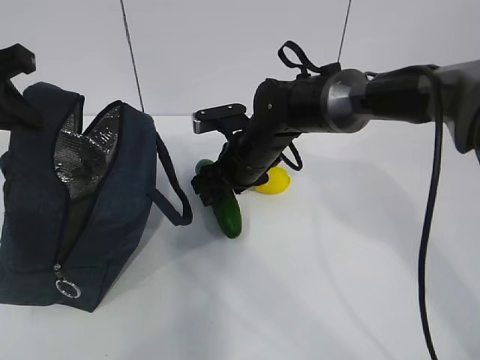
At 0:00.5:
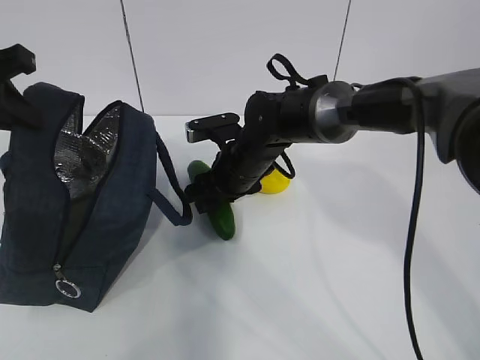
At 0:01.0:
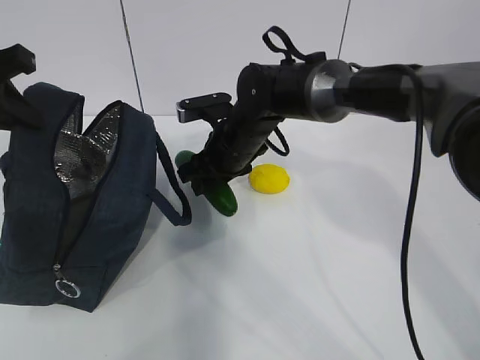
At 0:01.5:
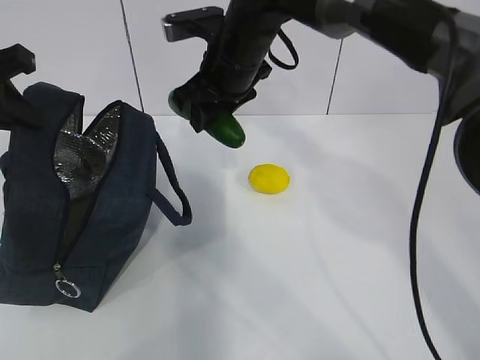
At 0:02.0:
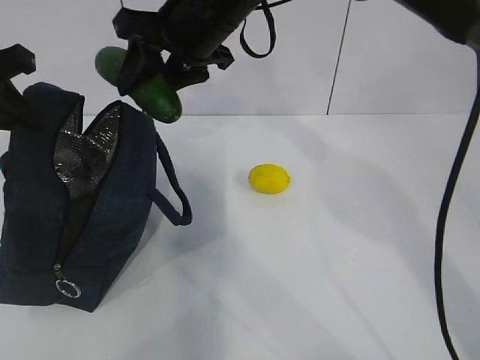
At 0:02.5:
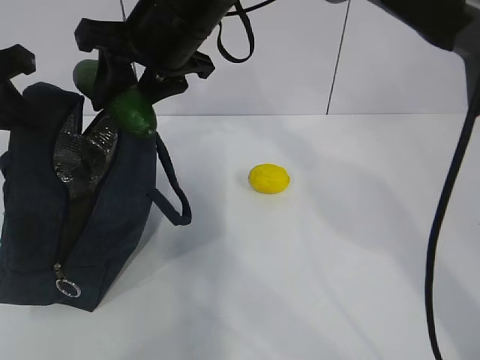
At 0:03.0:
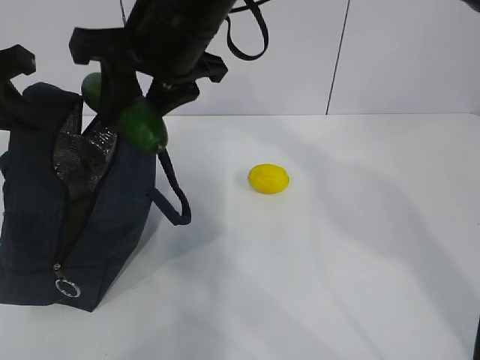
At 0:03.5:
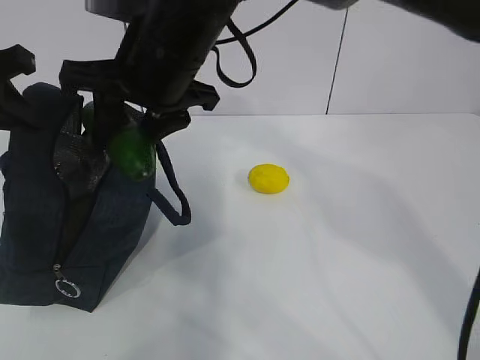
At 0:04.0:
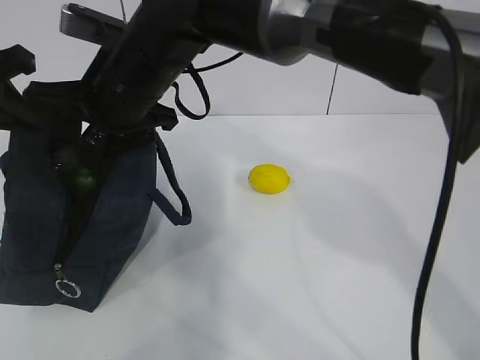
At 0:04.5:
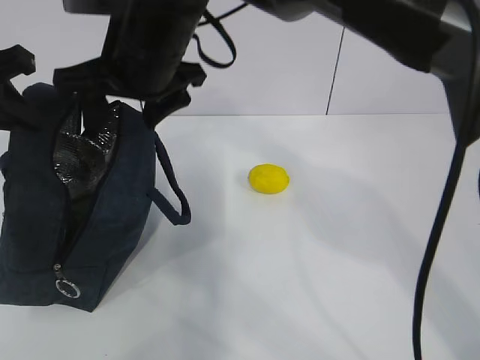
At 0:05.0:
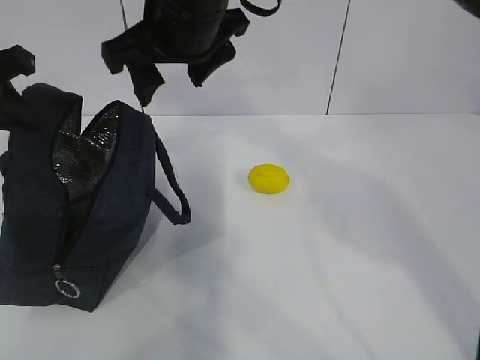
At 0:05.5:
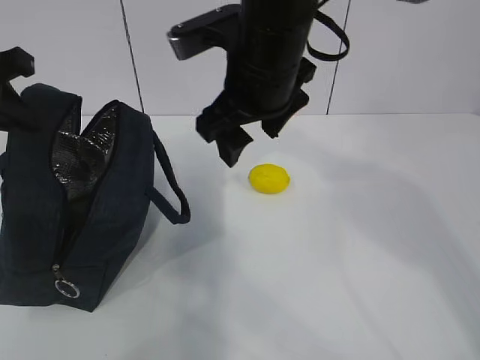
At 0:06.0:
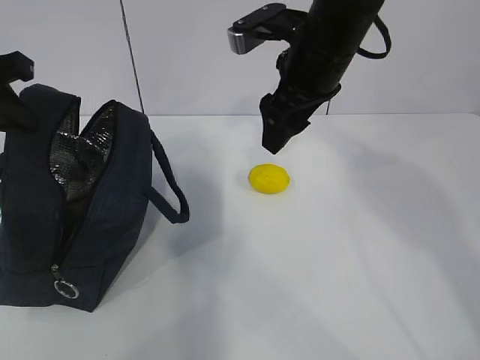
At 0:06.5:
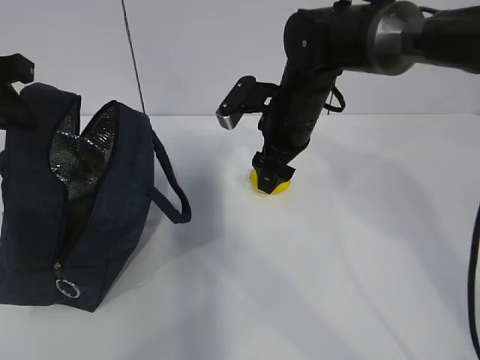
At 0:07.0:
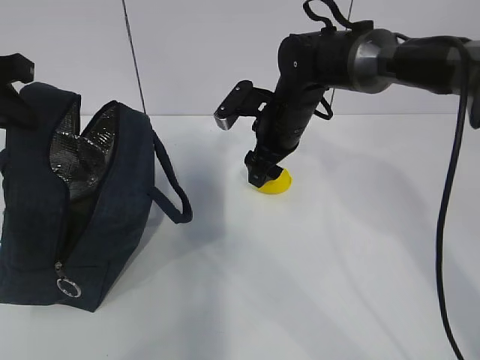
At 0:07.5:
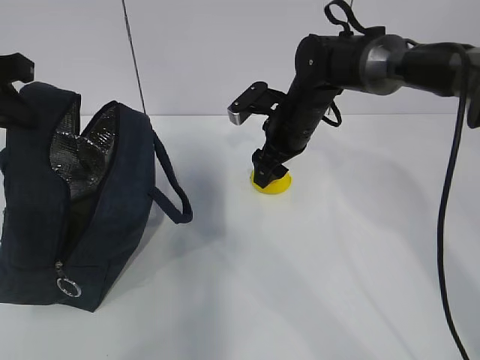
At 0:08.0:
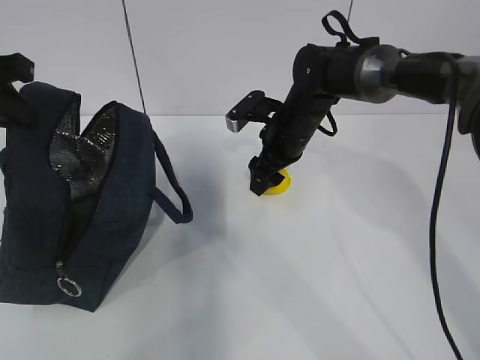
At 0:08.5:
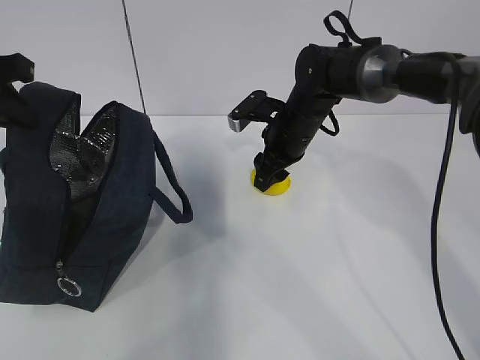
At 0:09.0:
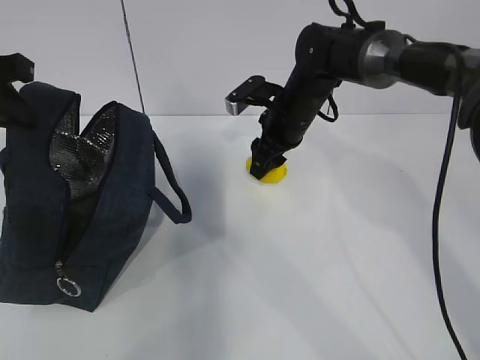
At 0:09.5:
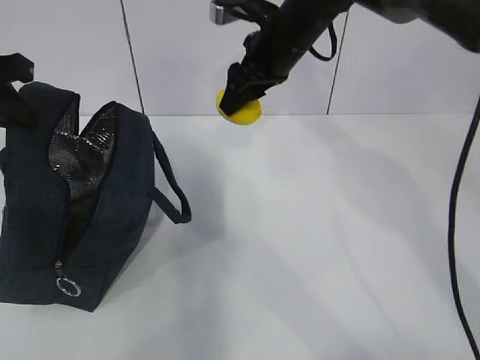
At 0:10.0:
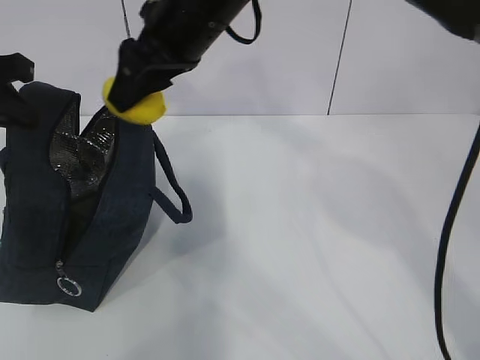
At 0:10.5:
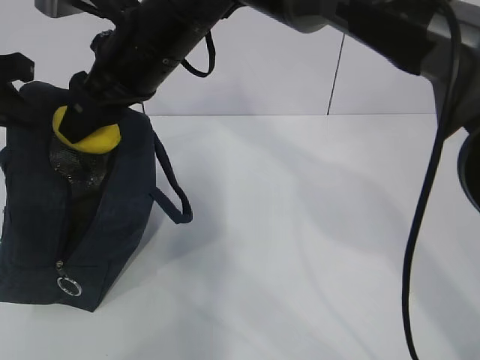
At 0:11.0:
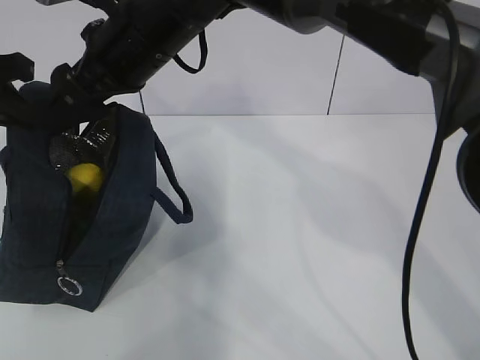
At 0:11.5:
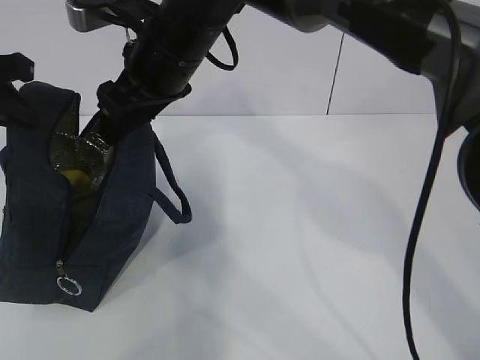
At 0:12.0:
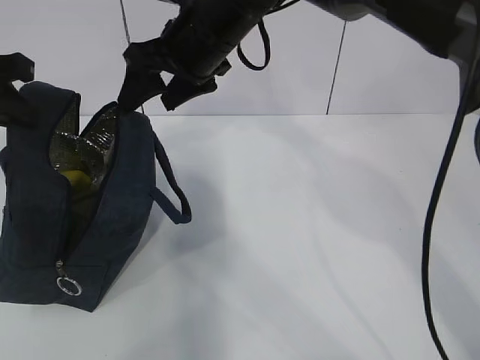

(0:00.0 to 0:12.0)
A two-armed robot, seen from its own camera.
Step, 0:00.0 - 0:02.5: Grab the lemon with your right hand.
Step, 0:05.5 - 0:06.5: Grab the lunch bag with your right hand.
Step, 0:07.0 - 0:09.0: Move the lunch bag to the right.
0:00.0 - 0:02.0: The right gripper heads upward, covering some 20 cm.
0:02.0 - 0:04.0: The right gripper travels to the left and backward by some 10 cm.
0:04.0 - 0:06.0: The right gripper travels to the right by about 20 cm.
0:06.0 - 0:08.0: The right gripper travels downward and forward by about 15 cm.
0:08.0 - 0:10.0: The right gripper is displaced upward, to the left and backward by some 25 cm.

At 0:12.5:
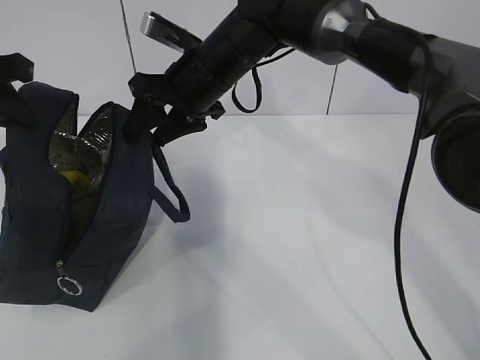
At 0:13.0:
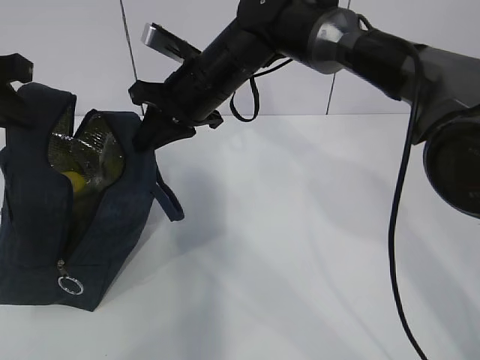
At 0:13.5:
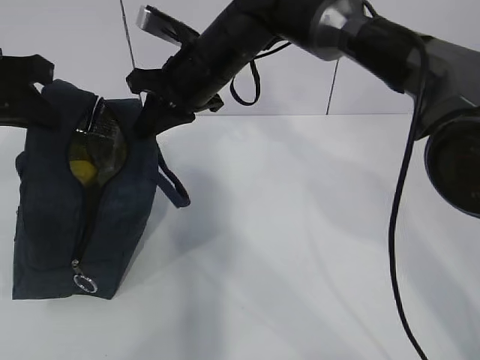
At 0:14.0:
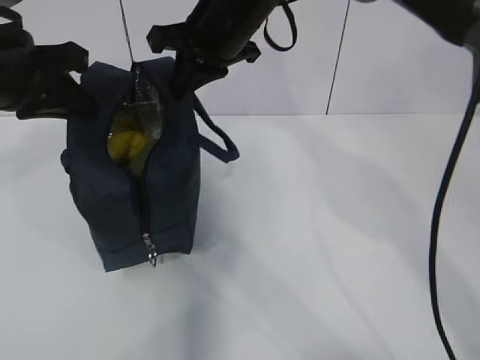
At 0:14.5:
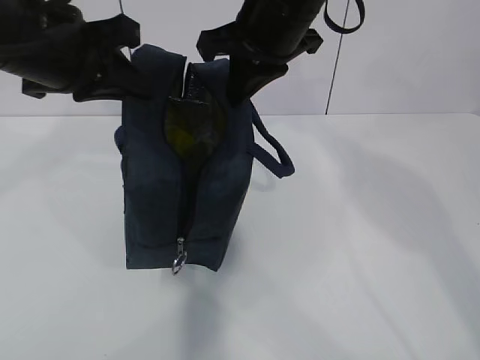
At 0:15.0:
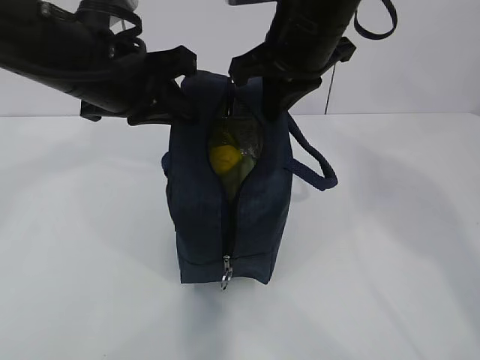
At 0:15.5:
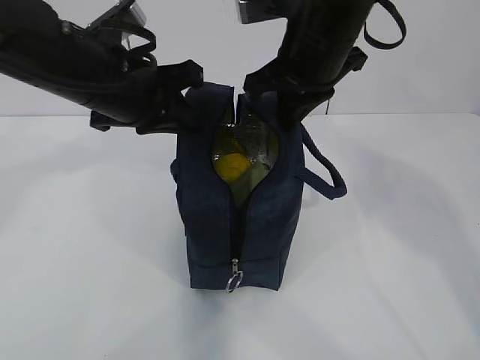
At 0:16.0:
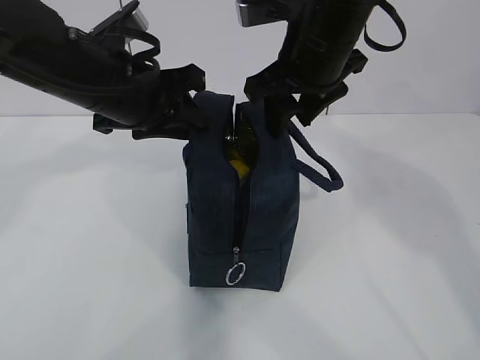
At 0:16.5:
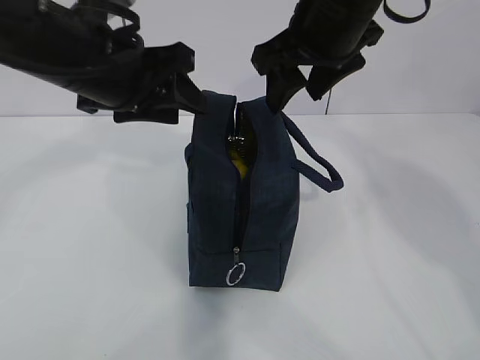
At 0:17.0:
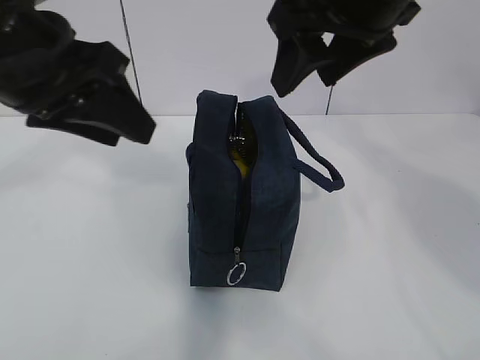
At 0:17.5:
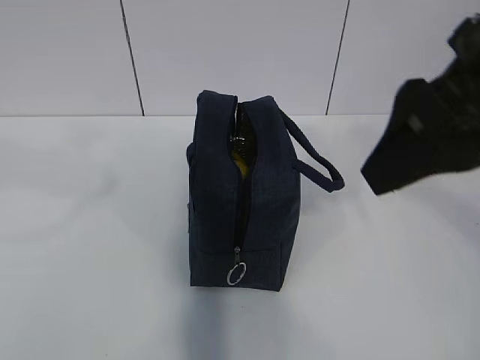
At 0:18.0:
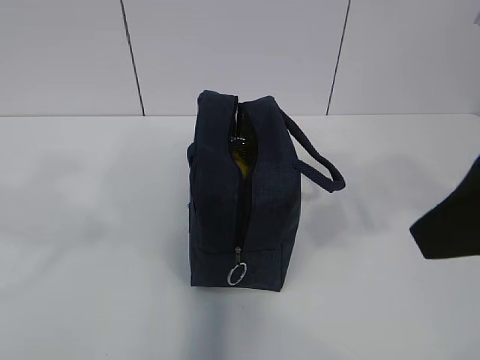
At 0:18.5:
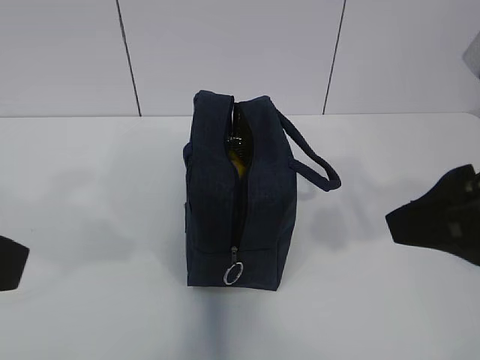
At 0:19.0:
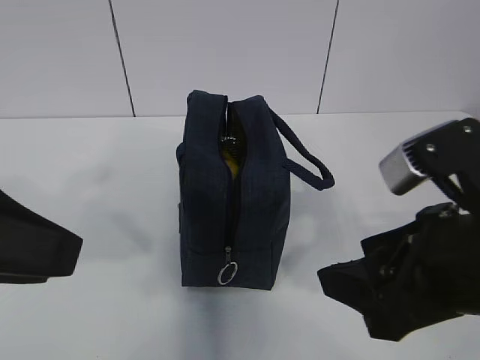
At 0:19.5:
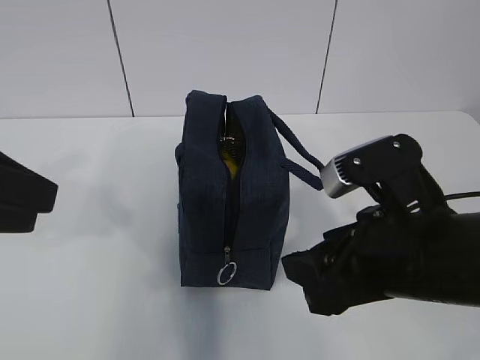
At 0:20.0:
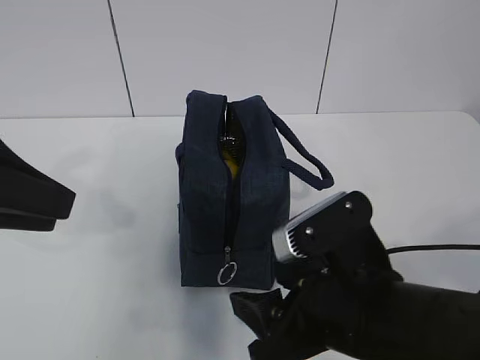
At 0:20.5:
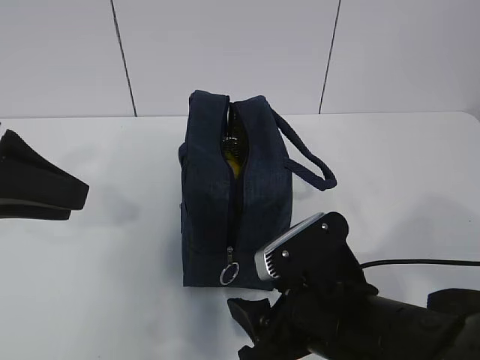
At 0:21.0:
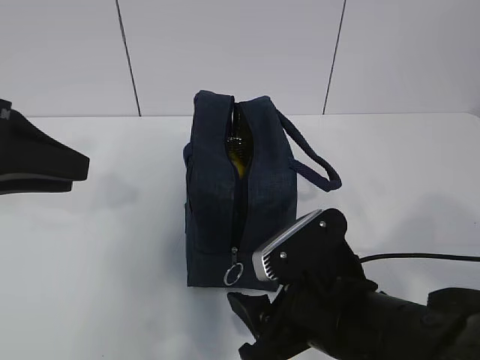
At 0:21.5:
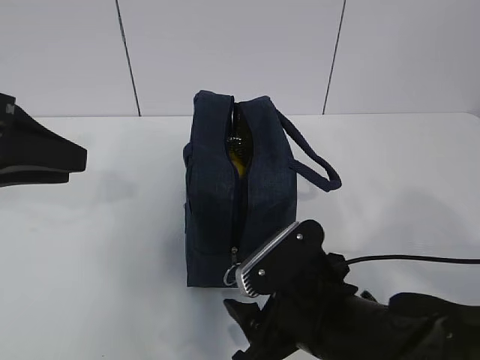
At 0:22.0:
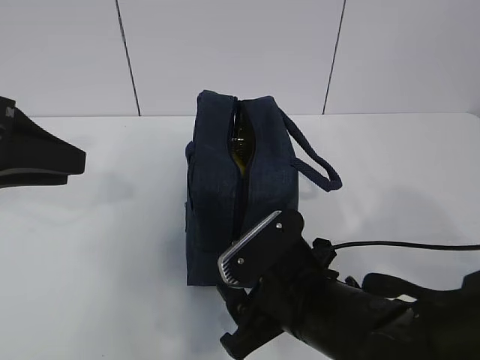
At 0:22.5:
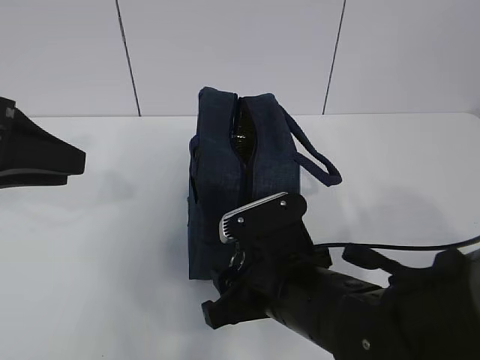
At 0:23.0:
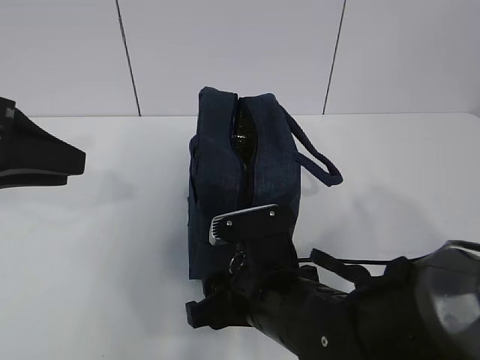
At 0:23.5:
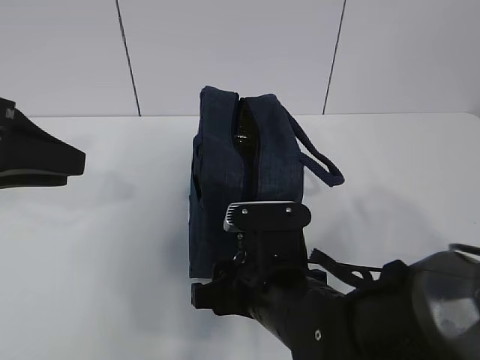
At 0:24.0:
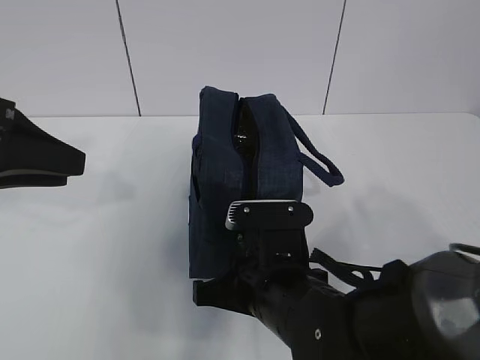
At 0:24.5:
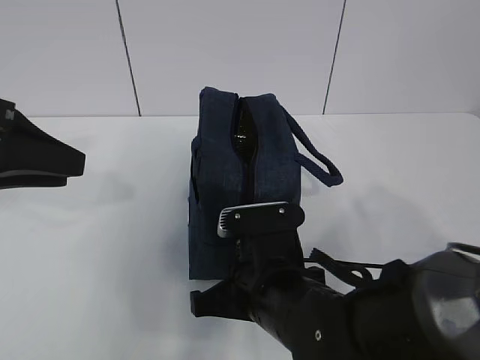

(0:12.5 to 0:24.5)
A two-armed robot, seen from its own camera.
0:12.5 - 0:14.5: The left gripper moves to the right, roughly 10 cm. Meanwhile the right gripper travels upward and to the right by approximately 10 cm, and closes its fingers.
0:14.5 - 0:16.5: The left gripper shifts by about 5 cm, and opens up; the right gripper opens its fingers.
0:16.5 - 0:18.5: The left gripper moves backward and to the left, some 25 cm, while the right gripper shifts about 20 cm backward and to the right.
0:18.5 - 0:20.5: The right gripper is displaced downward and to the left by roughly 20 cm; the left gripper goes about 15 cm forward and downward.
0:20.5 - 0:22.5: The right gripper changes place by roughly 5 cm.
0:22.5 - 0:24.5: The right gripper closes.

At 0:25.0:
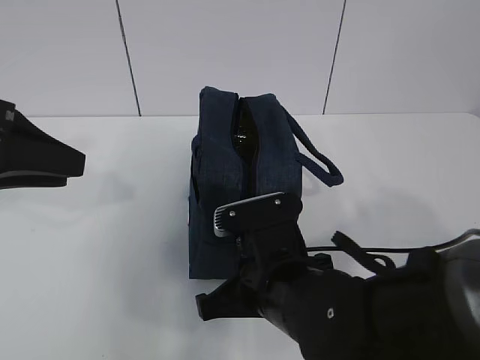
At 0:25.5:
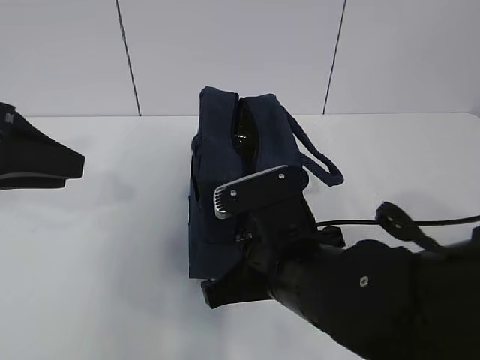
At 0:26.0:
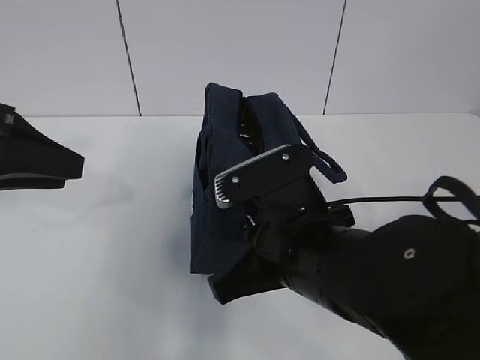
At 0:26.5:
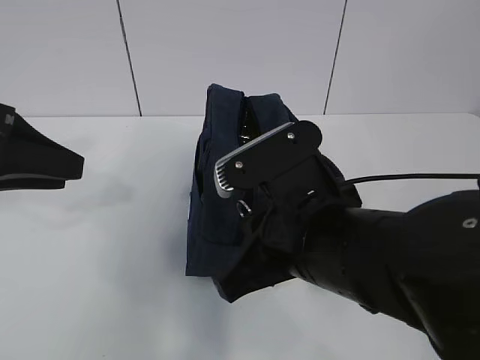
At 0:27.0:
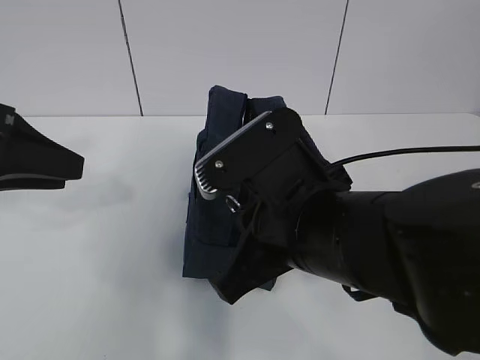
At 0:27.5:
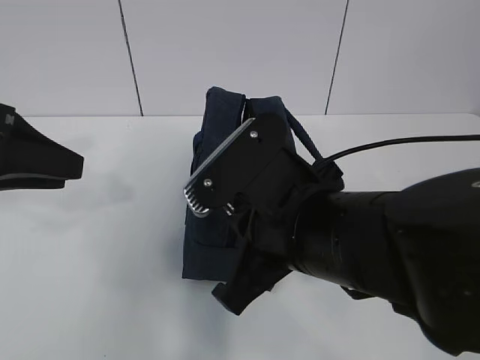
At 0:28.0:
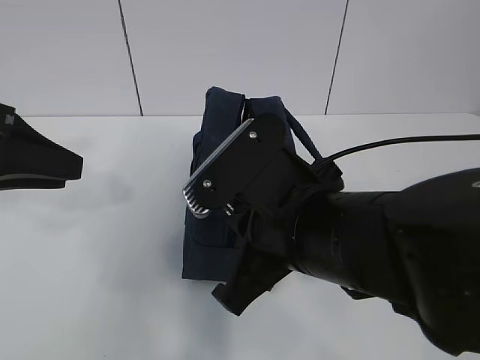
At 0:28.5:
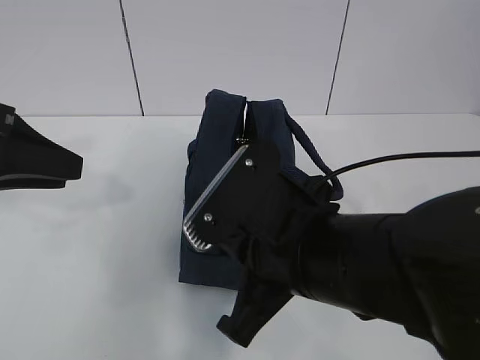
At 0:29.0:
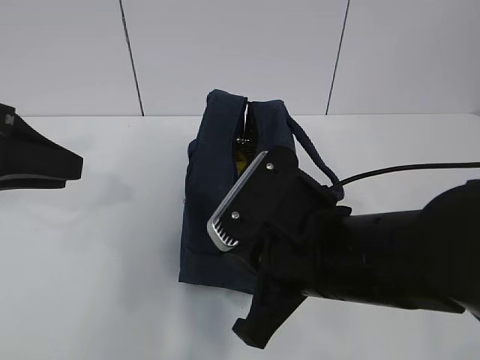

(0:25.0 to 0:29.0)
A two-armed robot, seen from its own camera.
0:25.0 - 0:27.0: The right gripper moves upward, some 10 cm.
0:27.0 - 0:29.0: The grippers move only a little.
